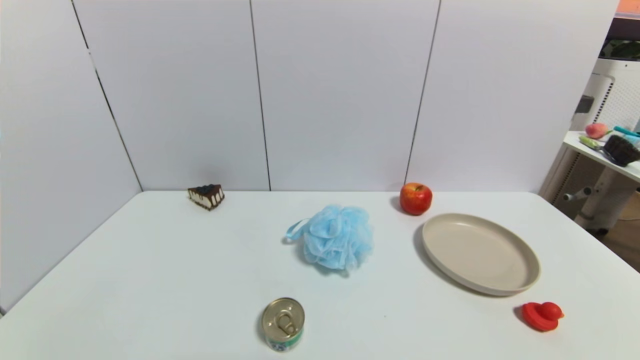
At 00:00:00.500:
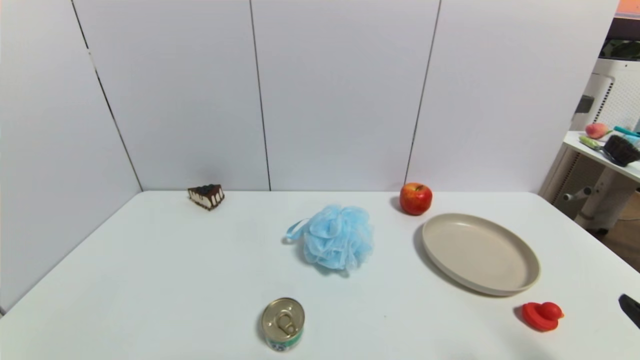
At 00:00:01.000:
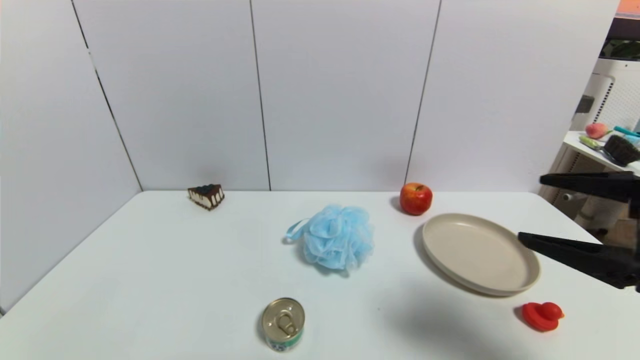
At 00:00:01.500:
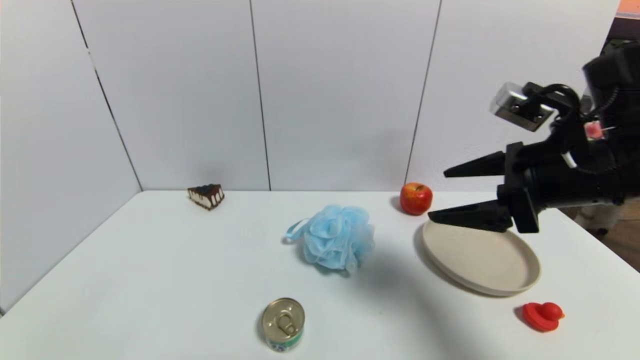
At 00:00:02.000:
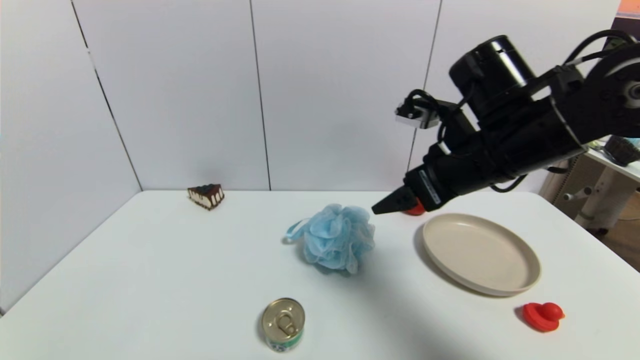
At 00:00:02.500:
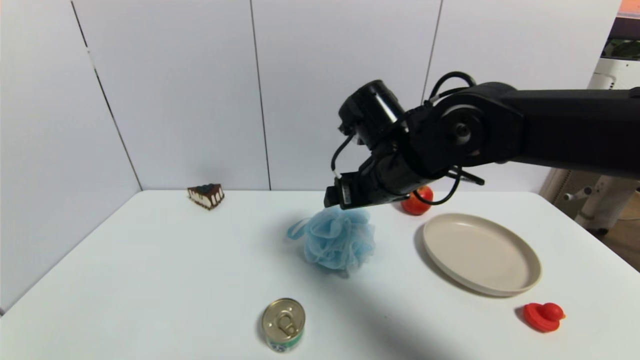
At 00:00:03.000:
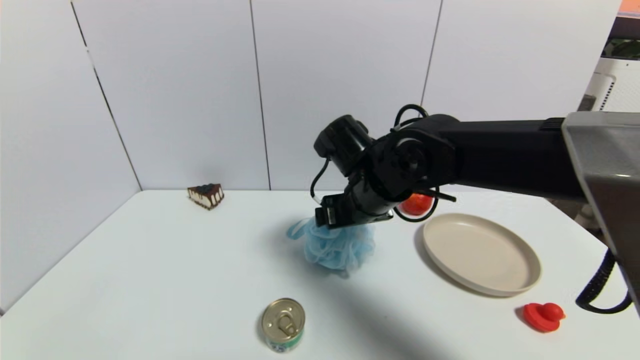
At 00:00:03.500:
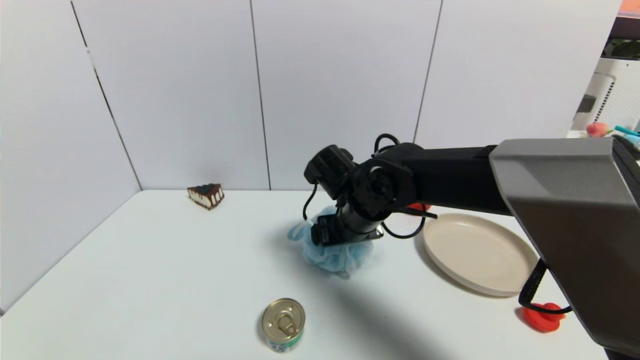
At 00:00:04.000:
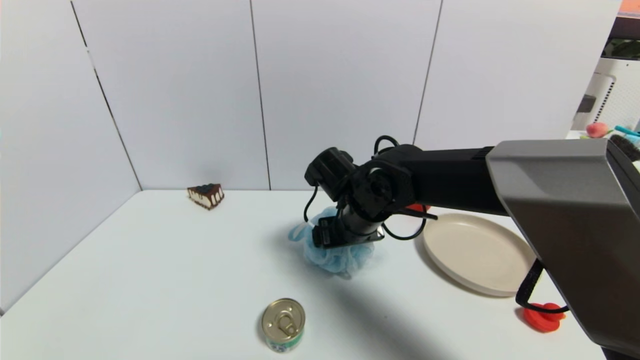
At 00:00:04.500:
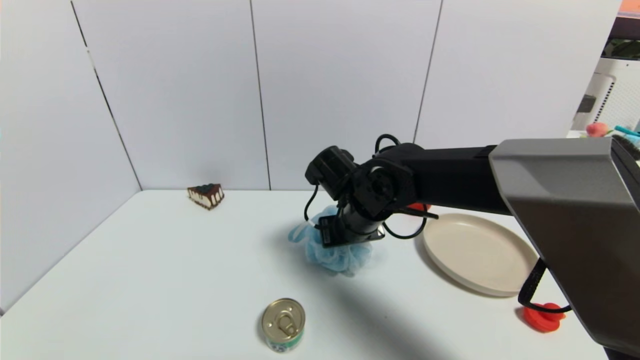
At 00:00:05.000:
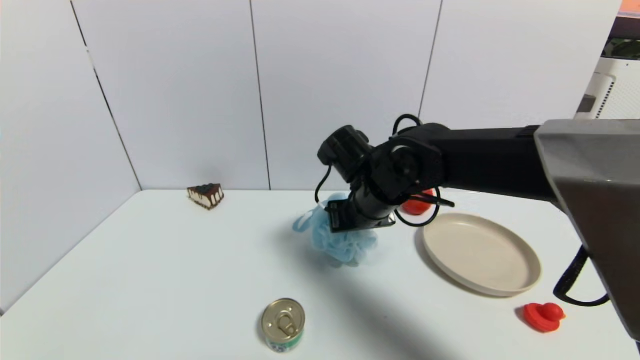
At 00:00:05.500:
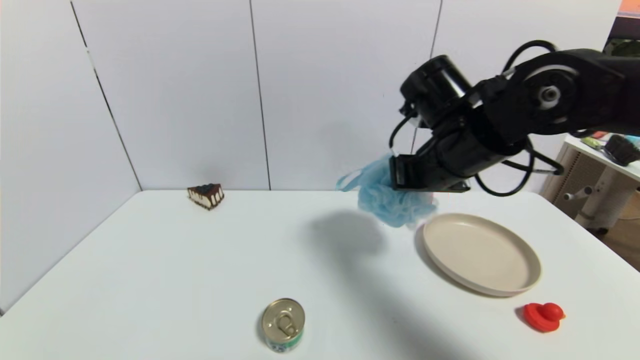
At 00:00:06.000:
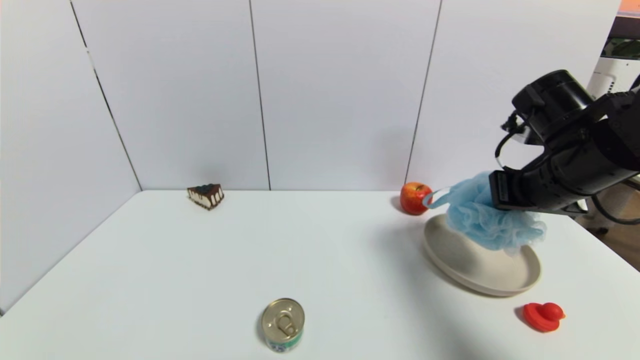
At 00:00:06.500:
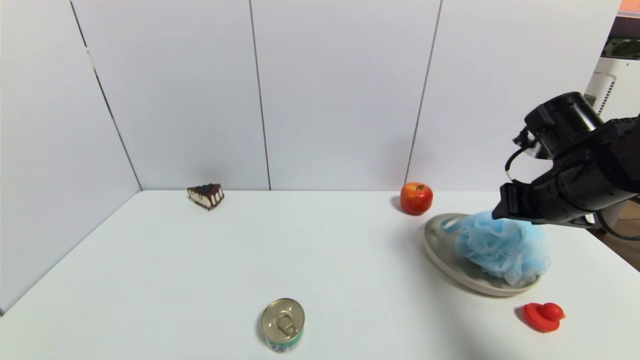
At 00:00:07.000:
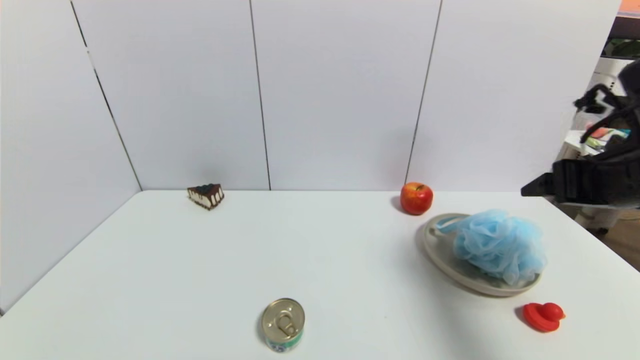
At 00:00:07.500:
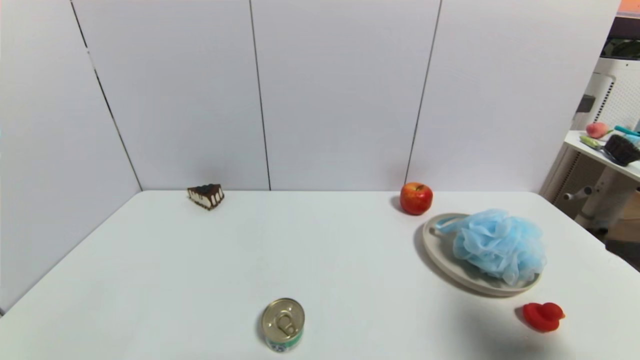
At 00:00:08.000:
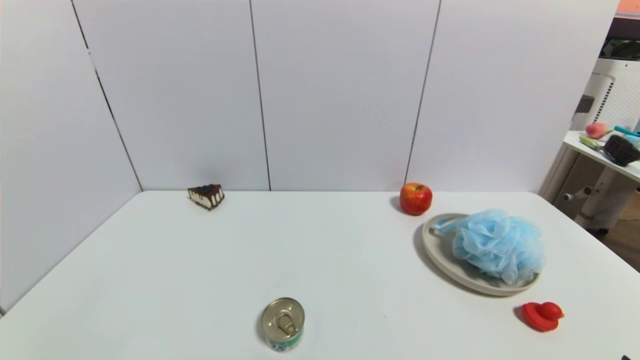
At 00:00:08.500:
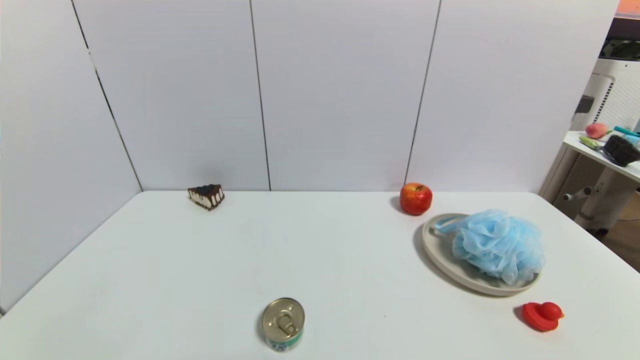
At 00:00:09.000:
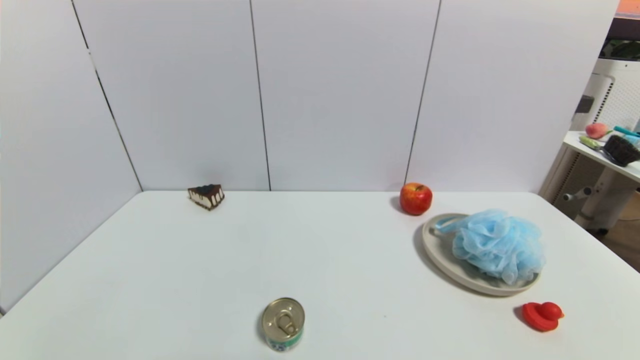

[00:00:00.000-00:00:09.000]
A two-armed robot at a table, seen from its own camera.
Task of the whole recording: use a gripper to pick the target object and place on the brown plate.
Step, 00:00:00.000 to 00:00:04.500: Grasp the shower sphere with the right gripper.
Step, 00:00:05.000 to 00:00:06.500: Place the shower sphere on the brown plate with the right gripper.
00:00:00.000 to 00:00:02.000: The right gripper heads forward, upward and to the left, covering some 40 cm.
00:00:02.000 to 00:00:04.500: The right gripper heads to the left, downward and forward, covering some 20 cm, and closes.
00:00:04.500 to 00:00:07.000: The right gripper is displaced to the right and upward by some 30 cm, and opens up.
00:00:07.000 to 00:00:09.000: The right gripper is displaced backward and downward by approximately 30 cm.
